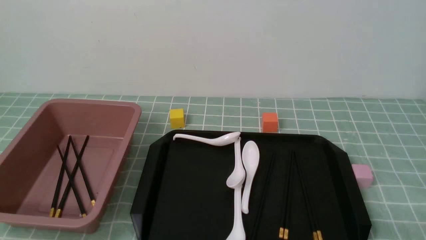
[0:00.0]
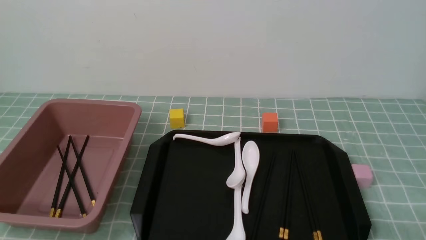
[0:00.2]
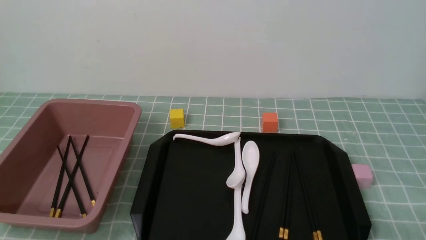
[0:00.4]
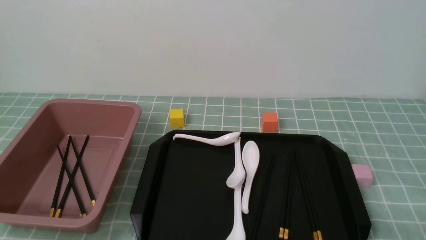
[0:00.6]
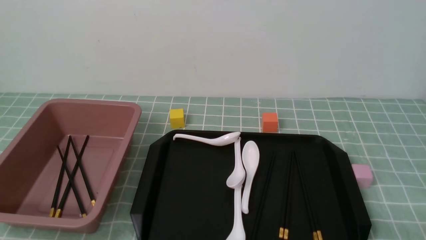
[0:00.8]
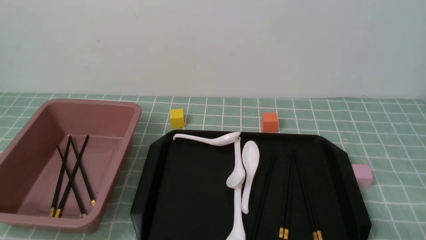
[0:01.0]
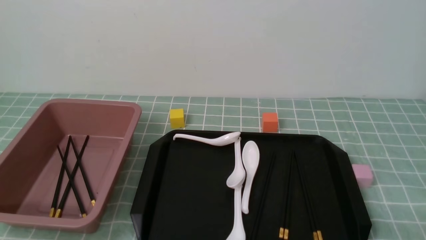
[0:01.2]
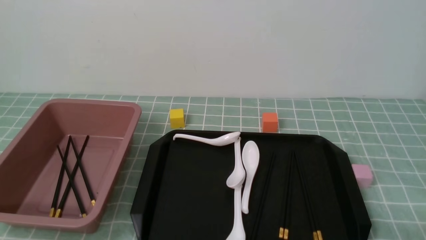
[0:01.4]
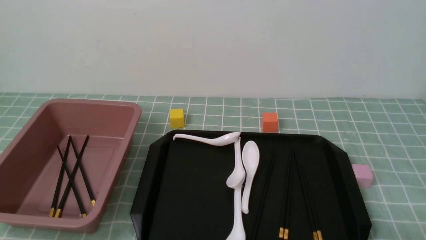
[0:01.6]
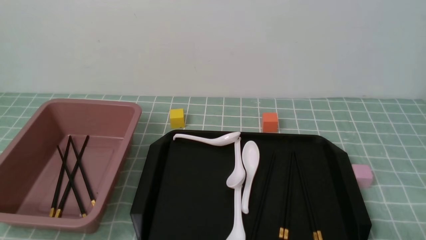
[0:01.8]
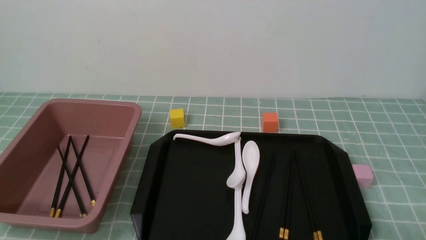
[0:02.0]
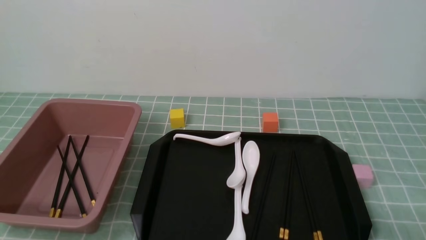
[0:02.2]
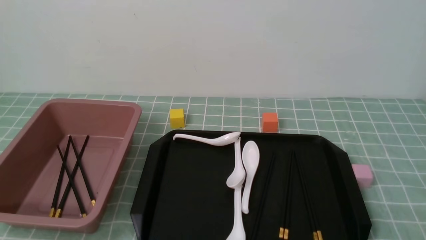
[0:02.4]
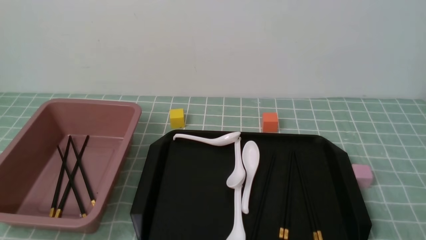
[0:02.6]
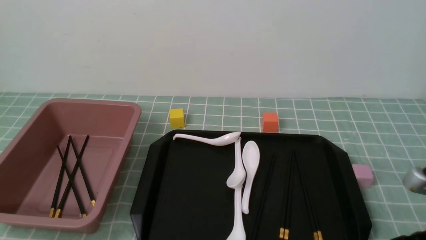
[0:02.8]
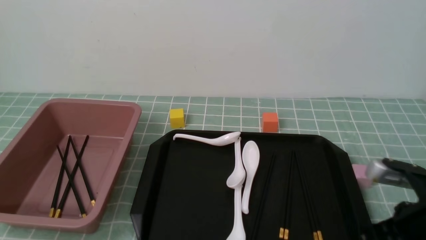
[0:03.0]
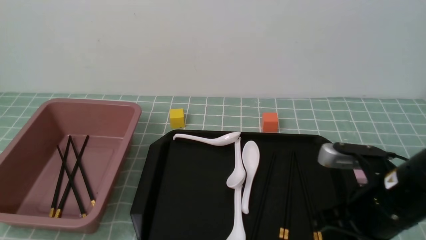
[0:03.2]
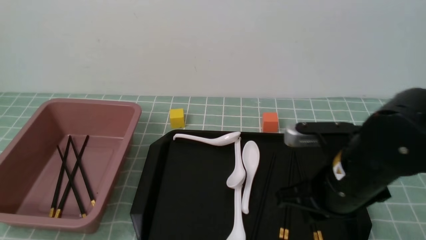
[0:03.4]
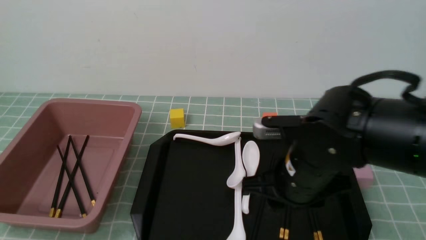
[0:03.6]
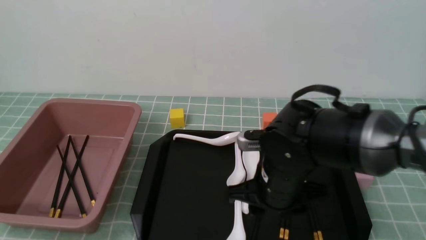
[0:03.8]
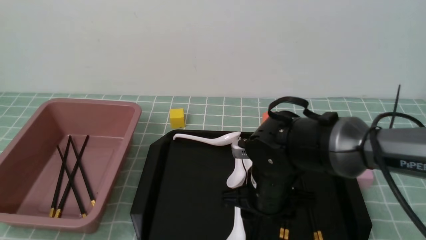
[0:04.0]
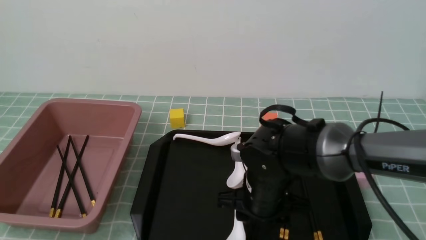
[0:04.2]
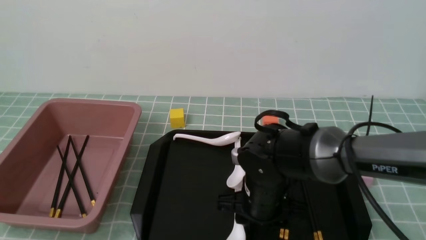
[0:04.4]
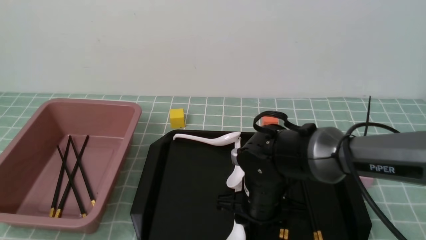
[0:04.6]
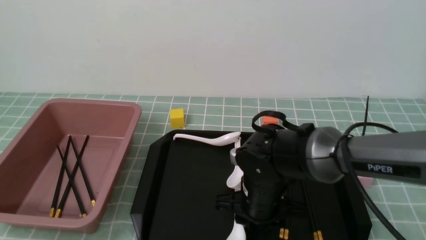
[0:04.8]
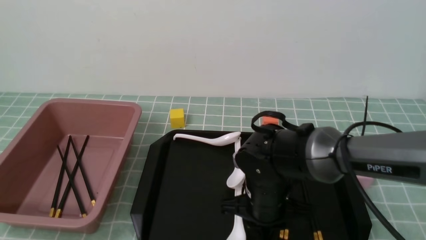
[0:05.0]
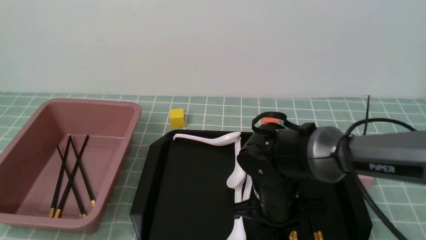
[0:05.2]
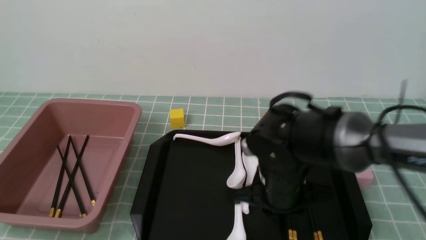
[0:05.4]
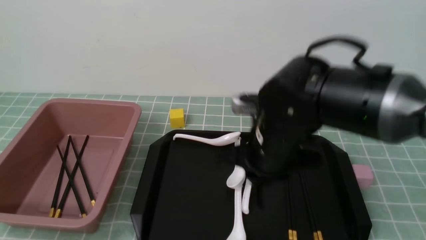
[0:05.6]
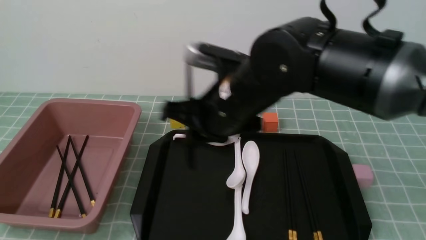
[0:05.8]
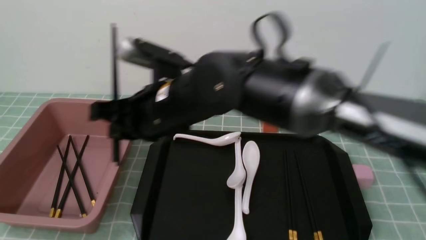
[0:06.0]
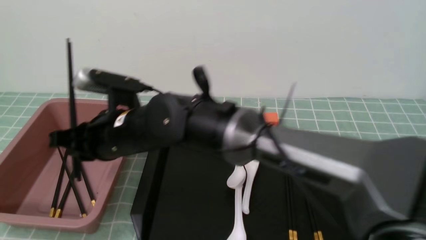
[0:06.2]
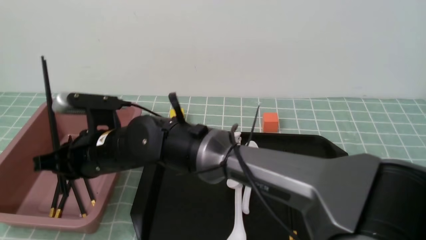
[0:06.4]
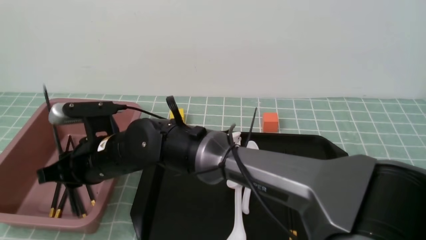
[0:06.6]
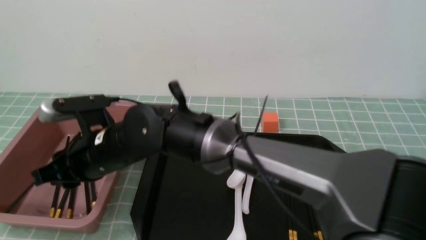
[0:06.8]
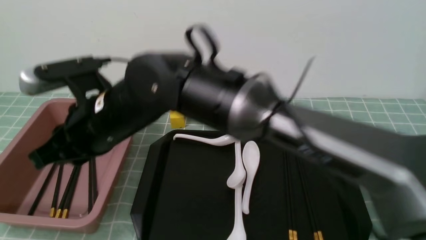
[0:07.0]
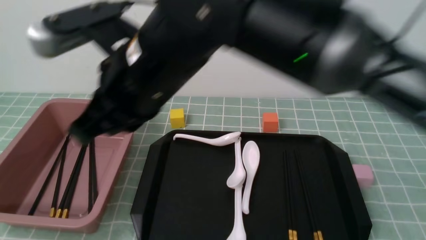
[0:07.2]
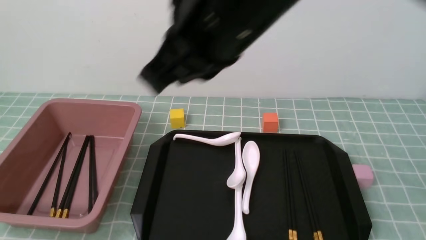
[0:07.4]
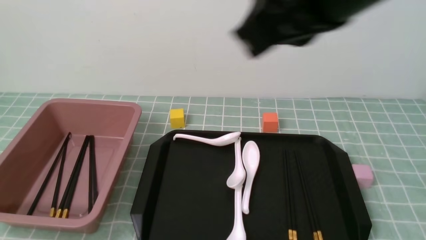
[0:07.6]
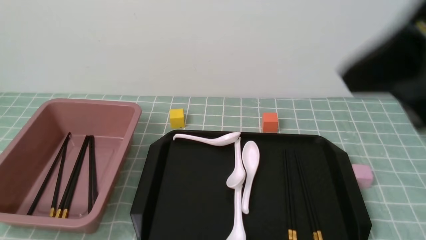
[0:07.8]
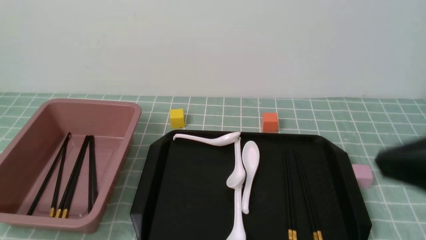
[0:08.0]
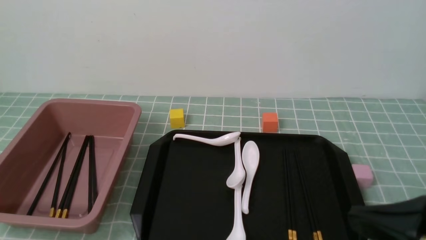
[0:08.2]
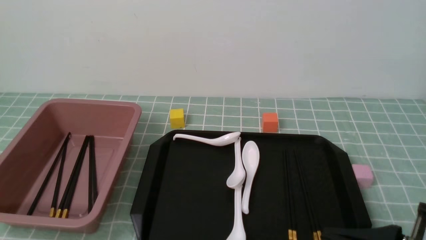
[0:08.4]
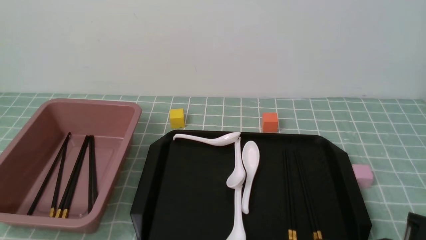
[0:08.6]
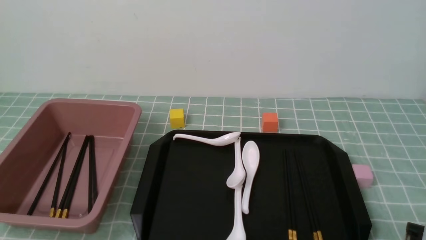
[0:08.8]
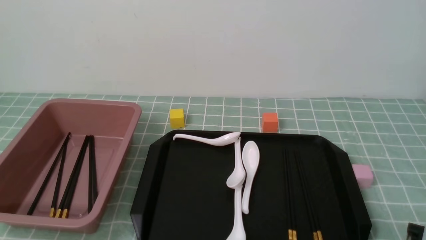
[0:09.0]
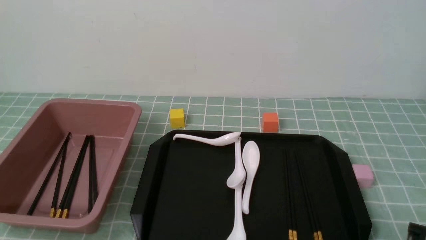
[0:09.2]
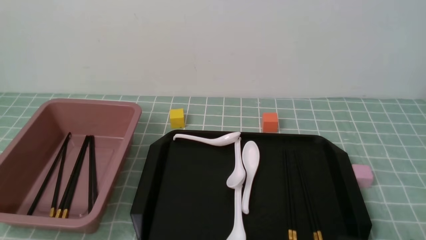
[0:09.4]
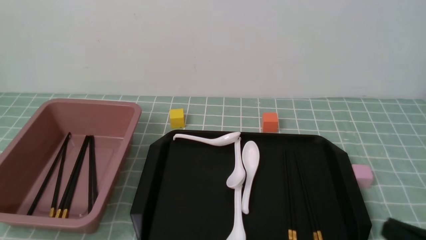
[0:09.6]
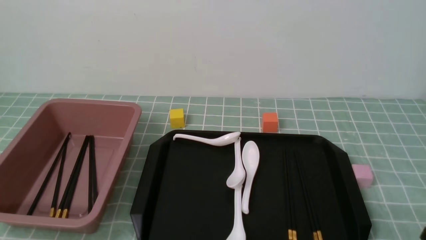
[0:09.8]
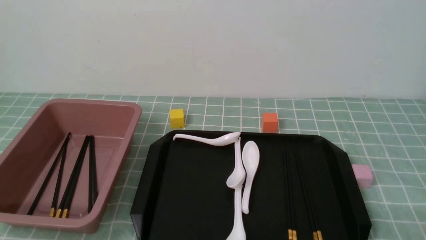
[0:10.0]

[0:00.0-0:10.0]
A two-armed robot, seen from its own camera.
Step, 0:00.0 to 0:05.6: use the right arm to grab a pair of chopsticks.
Step, 0:05.8 to 0:07.0: use the right arm to put the chopsticks into the lunch box.
0:01.4 to 0:02.8: The right gripper is displaced forward and upward by some 10 cm, and closes up.
0:02.8 to 0:04.2: The right gripper moves to the left and forward, some 25 cm, and opens up.
0:04.2 to 0:05.8: The right gripper heads upward and to the left, covering approximately 15 cm, and closes its fingers.
0:05.8 to 0:07.2: The right gripper moves upward, about 10 cm.
0:07.2 to 0:08.6: The right gripper is displaced to the right, backward and downward by some 35 cm.

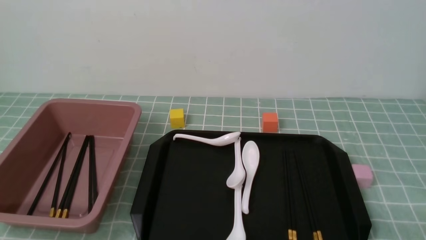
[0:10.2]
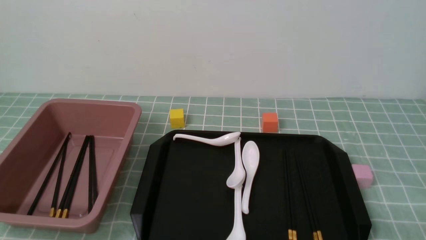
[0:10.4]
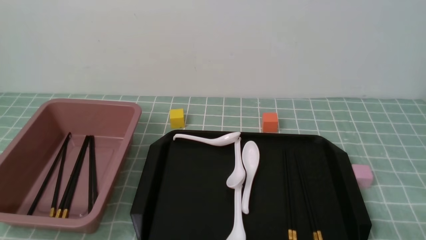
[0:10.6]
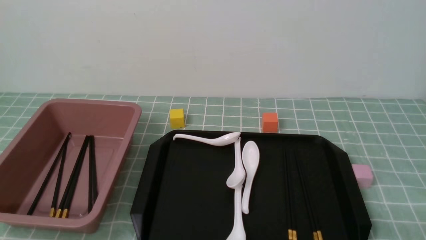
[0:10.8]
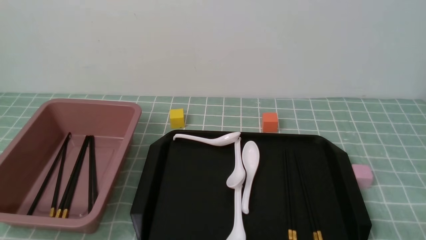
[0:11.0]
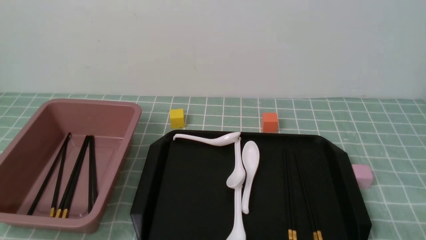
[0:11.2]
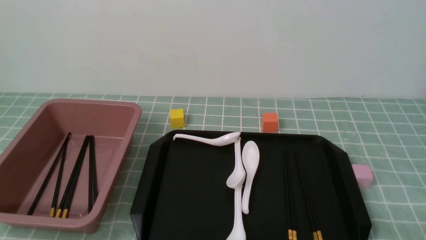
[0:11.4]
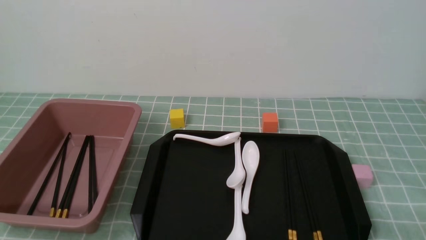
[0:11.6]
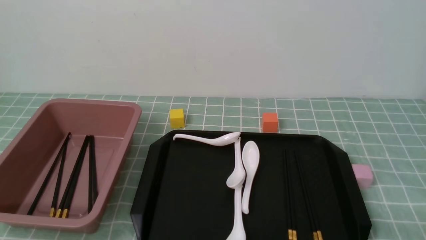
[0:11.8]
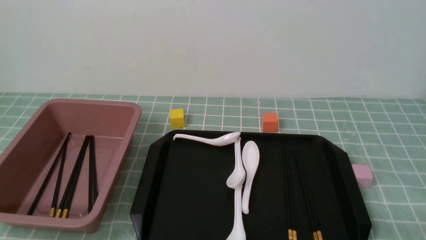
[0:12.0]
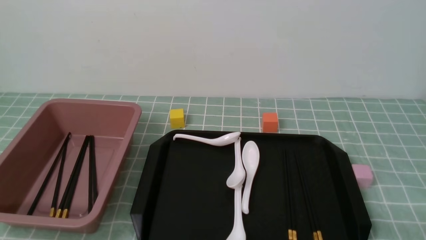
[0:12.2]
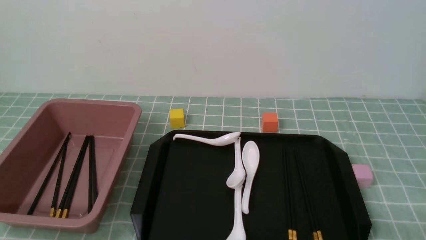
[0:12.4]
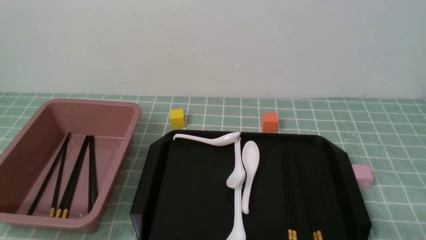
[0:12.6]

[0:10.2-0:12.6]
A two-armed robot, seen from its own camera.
0:10.2 to 0:12.6: Both grippers stay put.
